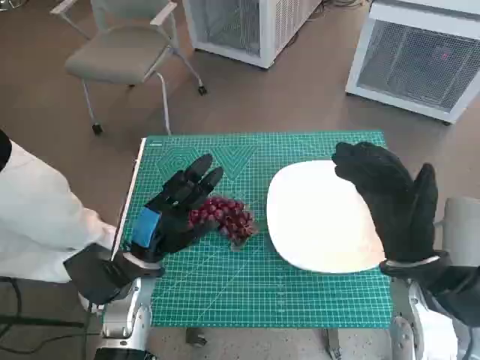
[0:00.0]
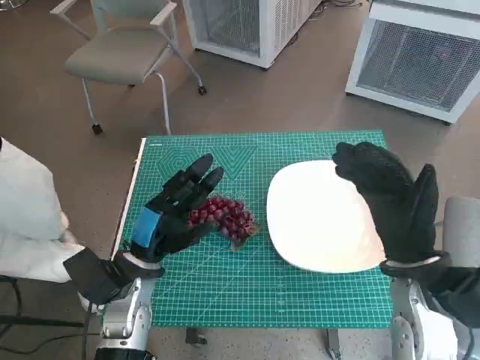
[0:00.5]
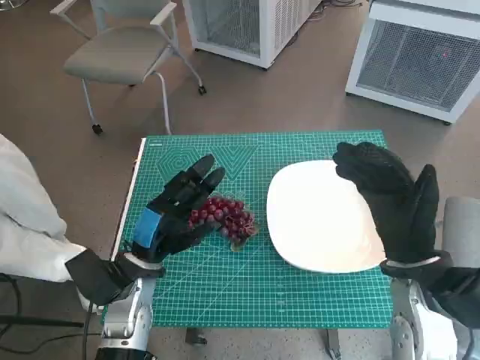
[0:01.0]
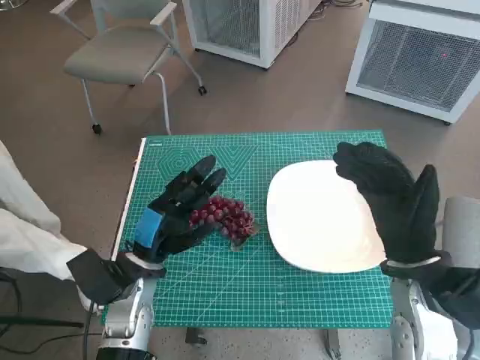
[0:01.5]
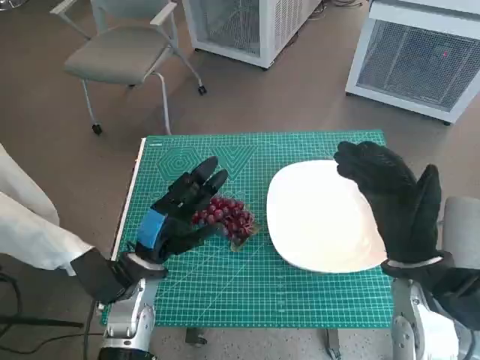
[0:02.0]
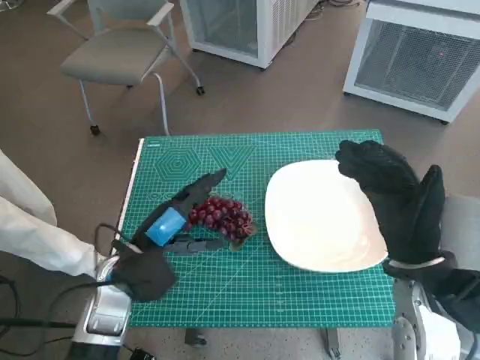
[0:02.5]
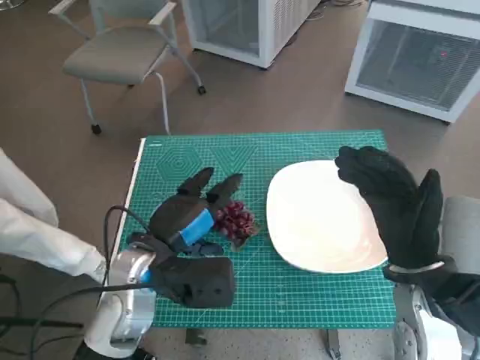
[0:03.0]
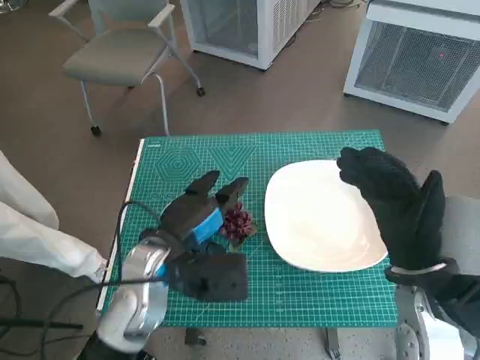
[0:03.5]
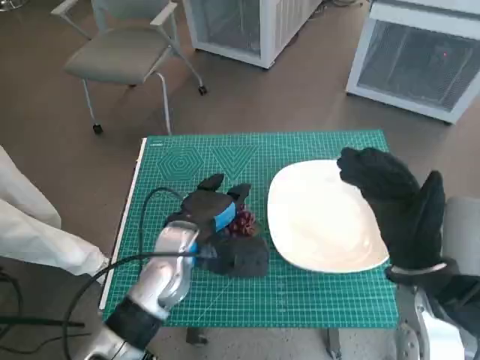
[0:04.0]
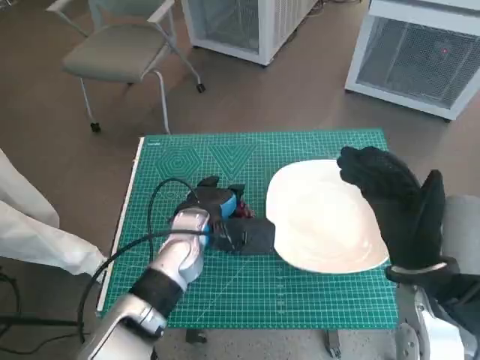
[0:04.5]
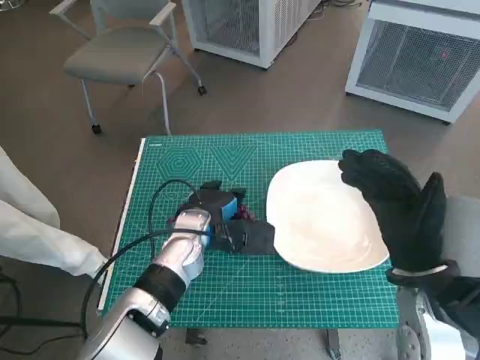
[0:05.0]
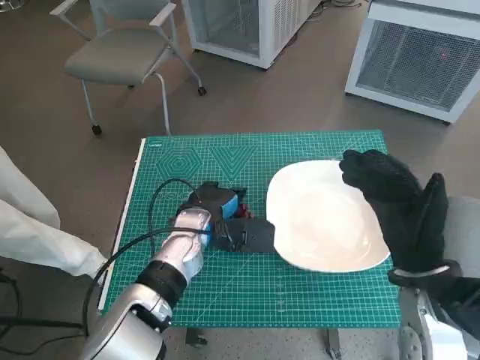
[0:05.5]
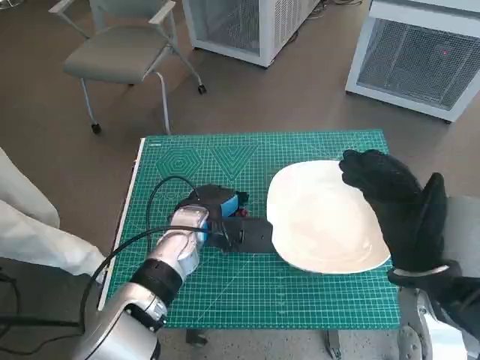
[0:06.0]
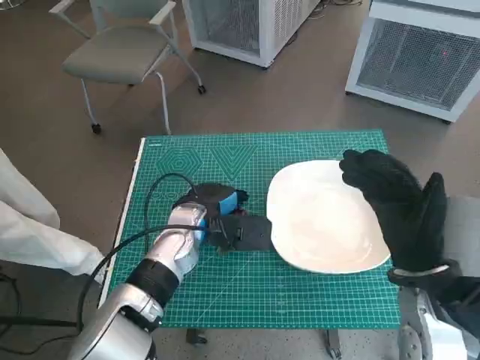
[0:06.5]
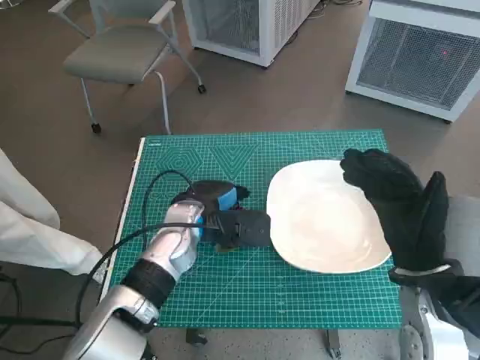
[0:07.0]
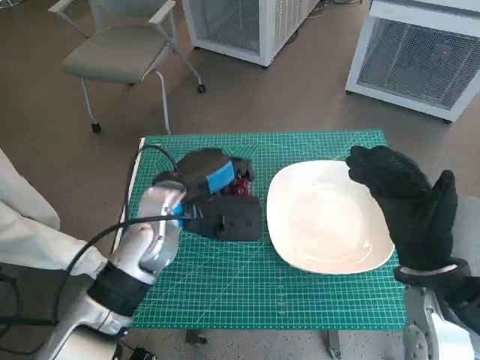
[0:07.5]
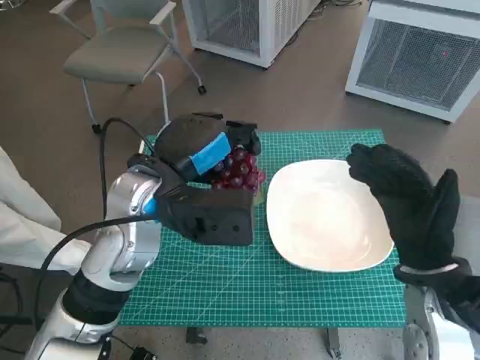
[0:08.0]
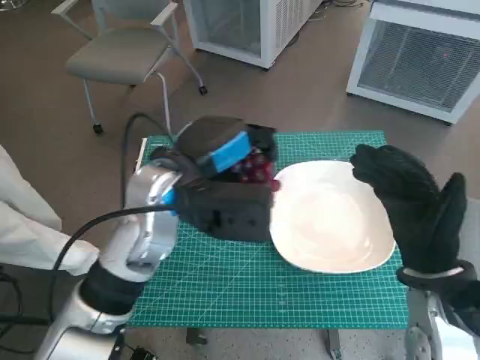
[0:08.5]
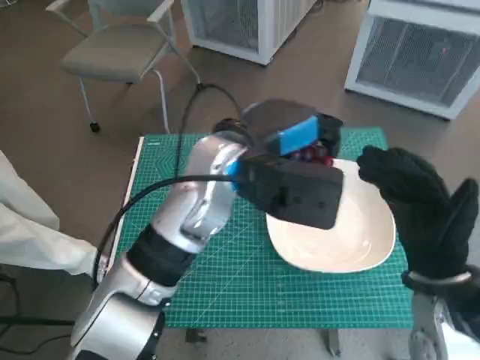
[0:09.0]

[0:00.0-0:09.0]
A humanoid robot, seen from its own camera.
Task of the whole recording: Pick up the grapes and put them on the plate.
Step, 0.0 to 5.5 s: Grasp the grapes with left hand.
2.0 to 4.5 s: The left hand travels to the right and forward by roughly 10 cm.
4.5 to 7.0 s: The hands move only a little.
7.0 to 9.0 s: The left hand is displaced upward and to the right by roughly 15 cm.

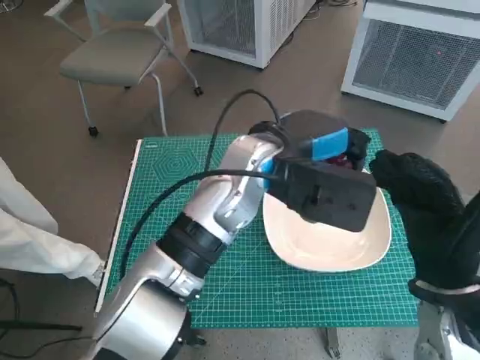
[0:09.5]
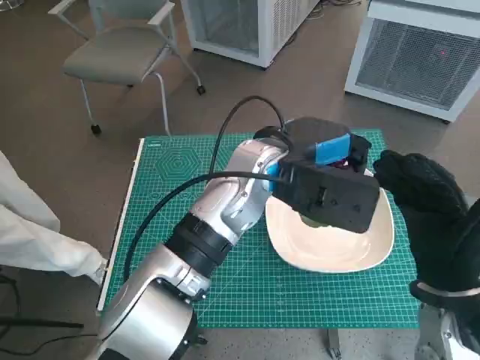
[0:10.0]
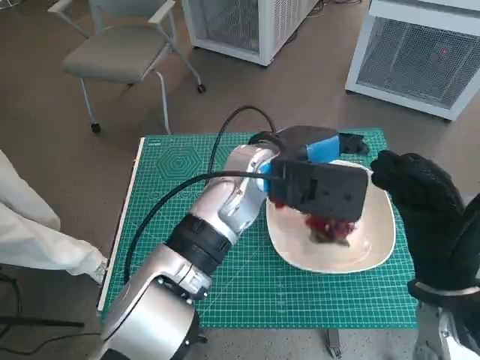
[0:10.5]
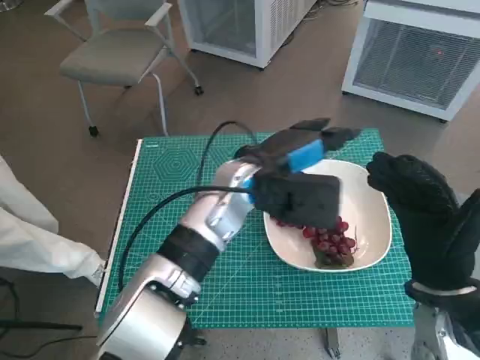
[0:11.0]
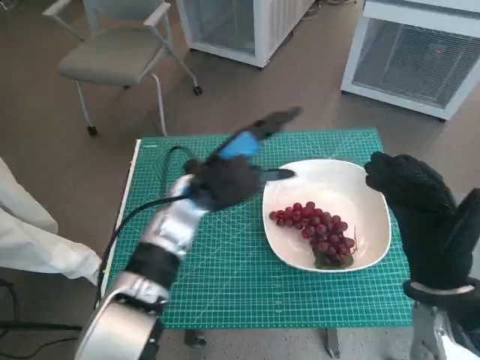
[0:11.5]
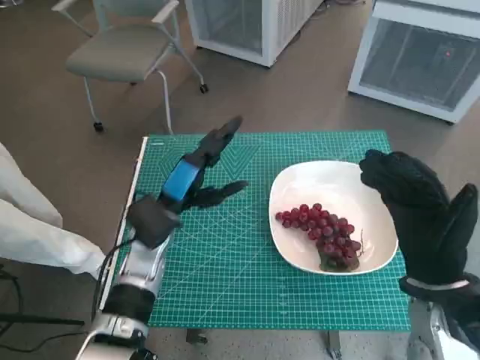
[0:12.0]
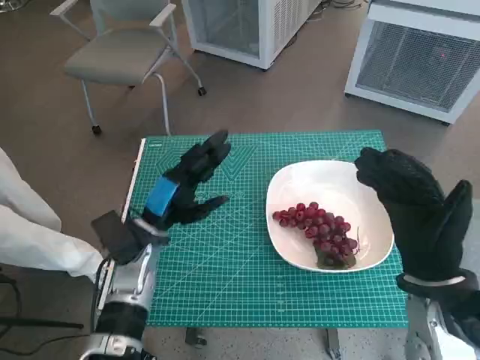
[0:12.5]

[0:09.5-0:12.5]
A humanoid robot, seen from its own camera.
Task of the whole recording: Pick up the grapes and put them on the plate.
9.5 to 11.0 s: The hands move only a little.
11.0 to 12.5 s: The left hand travels to the left and downward by about 20 cm.

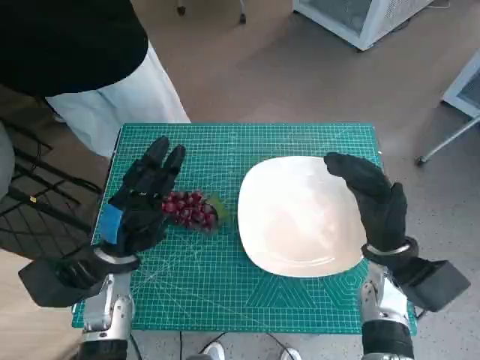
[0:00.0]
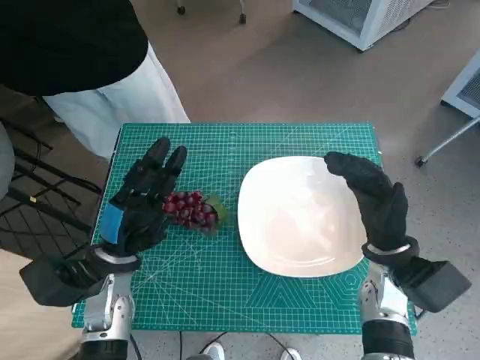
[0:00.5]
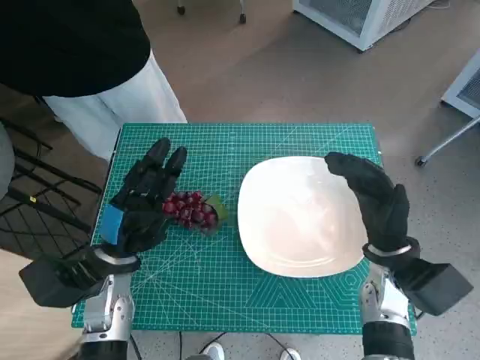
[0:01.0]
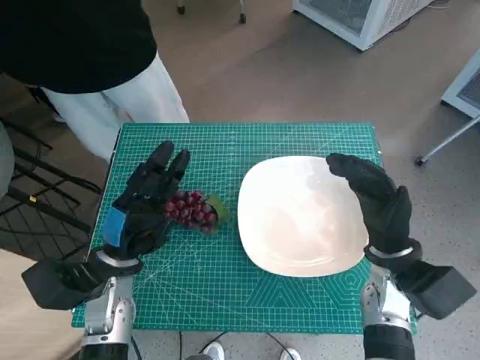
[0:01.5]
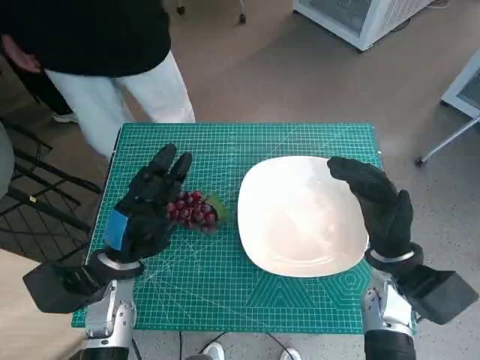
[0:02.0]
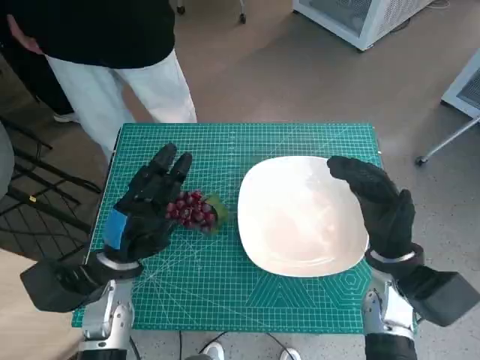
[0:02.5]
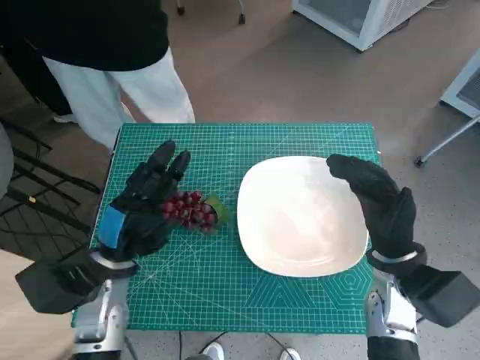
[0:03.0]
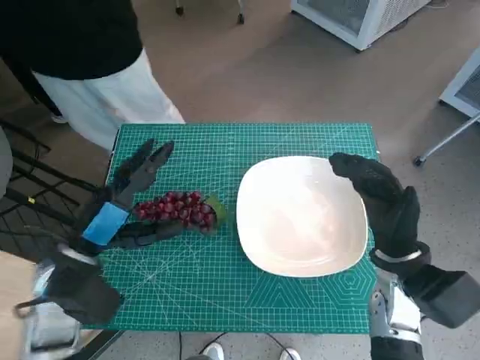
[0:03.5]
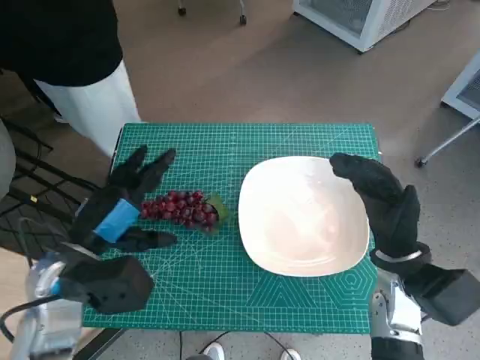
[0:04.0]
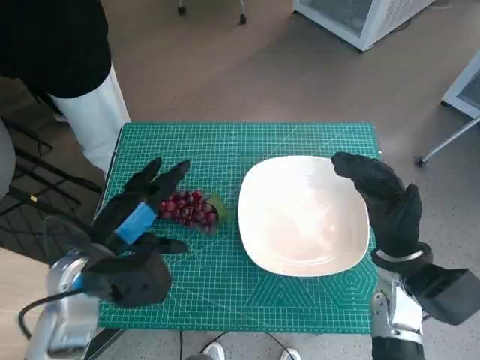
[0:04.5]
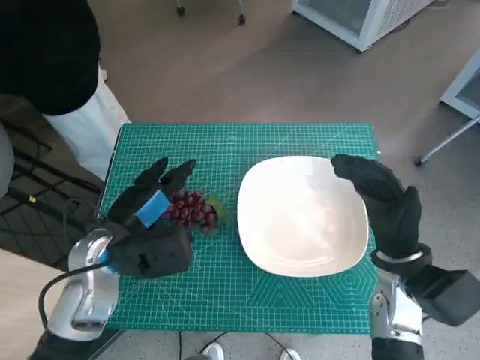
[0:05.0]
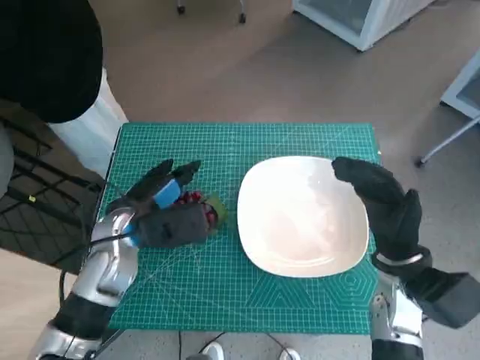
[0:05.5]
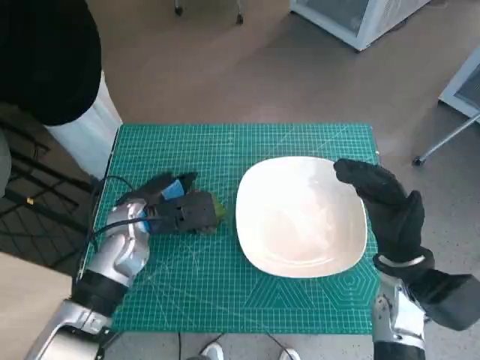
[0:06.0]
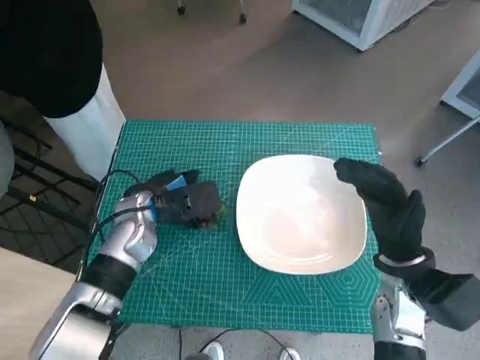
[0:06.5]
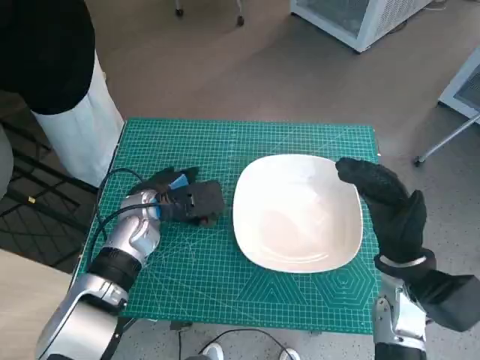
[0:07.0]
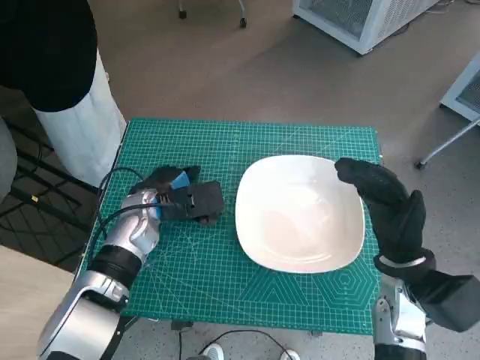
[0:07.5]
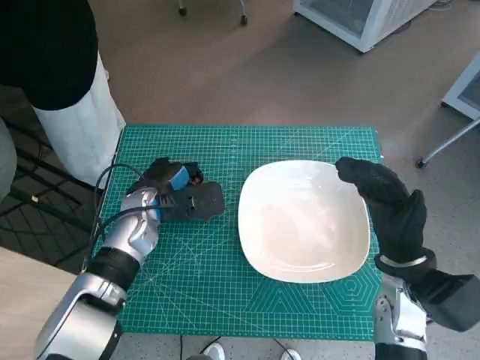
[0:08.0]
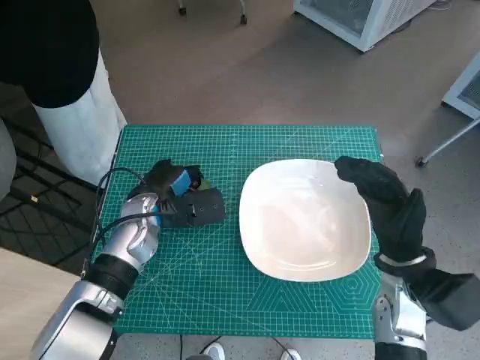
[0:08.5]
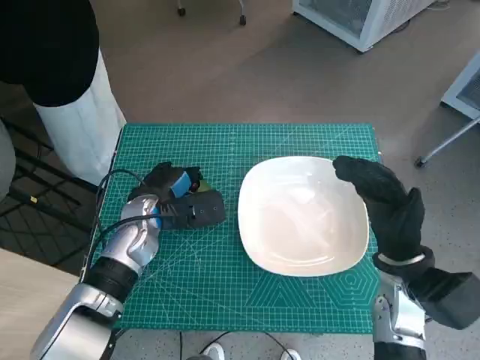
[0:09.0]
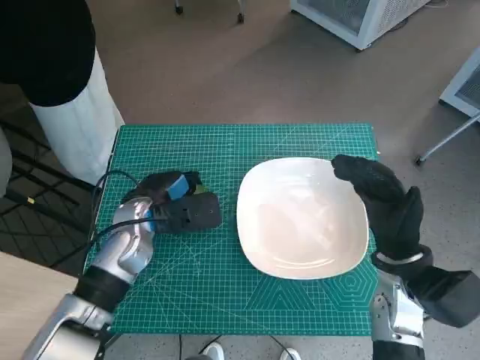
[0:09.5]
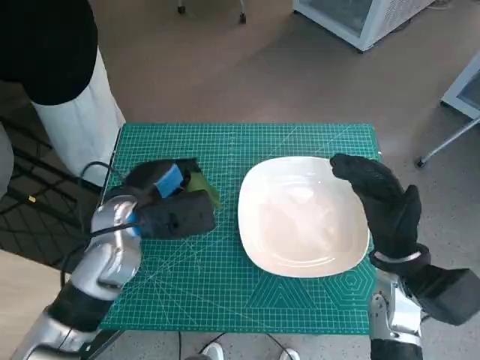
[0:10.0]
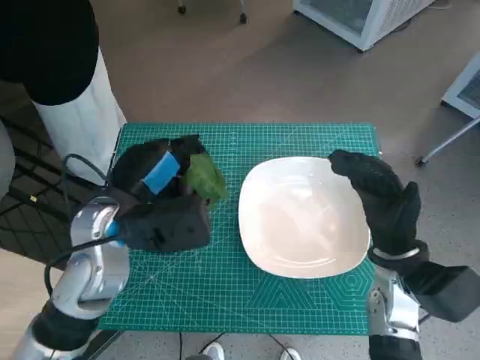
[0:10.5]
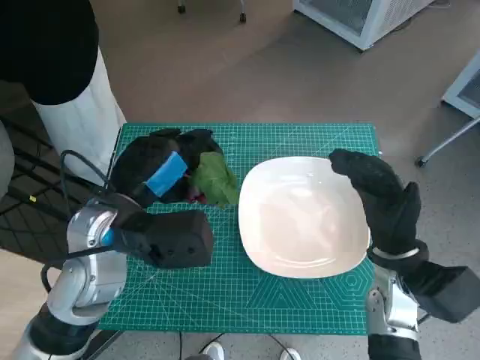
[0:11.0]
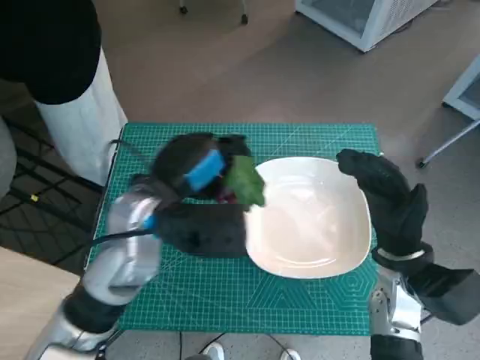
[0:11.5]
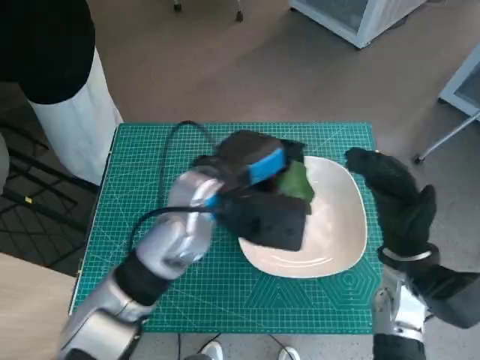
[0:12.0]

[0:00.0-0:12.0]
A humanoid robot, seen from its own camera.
Task of the whole recording: Pick up the grapes and put them on the plate.
Step, 0.0 to 9.0 s: Grasp the grapes with left hand.
2.0 to 4.0 s: The left hand goes about 10 cm upward.
4.0 to 6.0 s: The left hand shifts roughly 10 cm forward and downward.
6.0 to 8.0 s: The hands make only small movements.
8.0 to 10.0 s: The left hand shifts by approximately 5 cm.
10.0 to 12.0 s: The left hand goes some 10 cm to the right and upward.

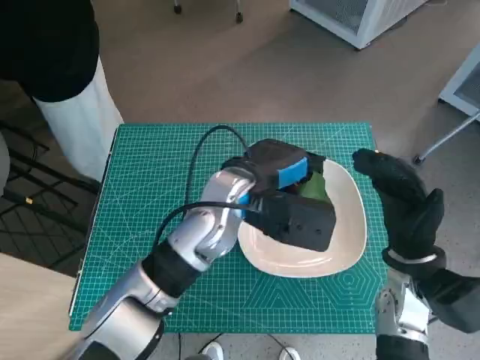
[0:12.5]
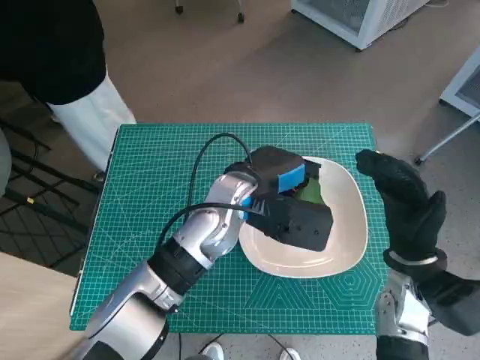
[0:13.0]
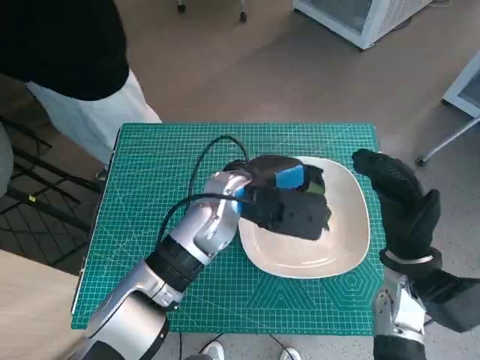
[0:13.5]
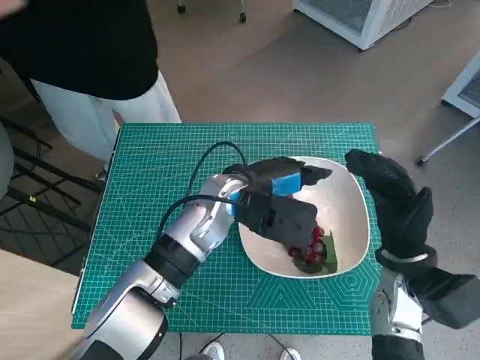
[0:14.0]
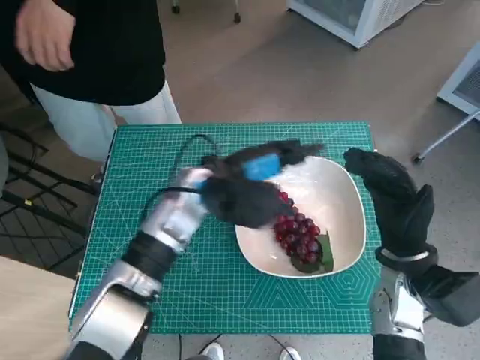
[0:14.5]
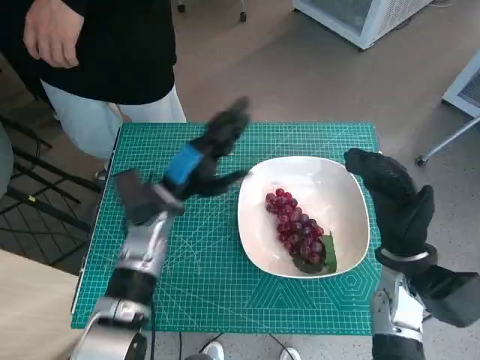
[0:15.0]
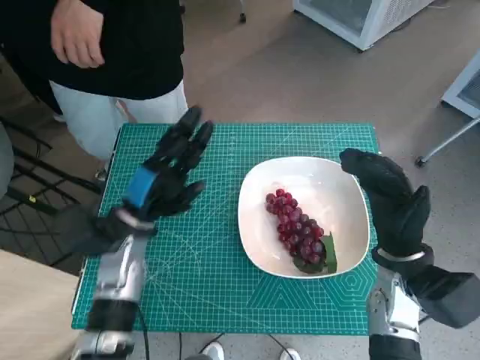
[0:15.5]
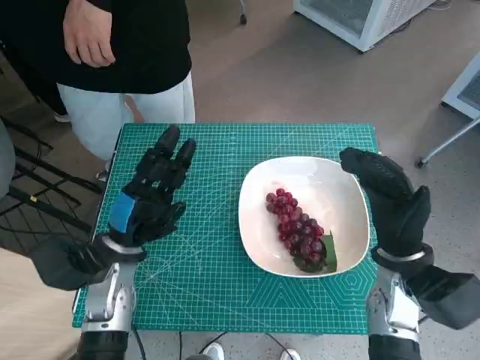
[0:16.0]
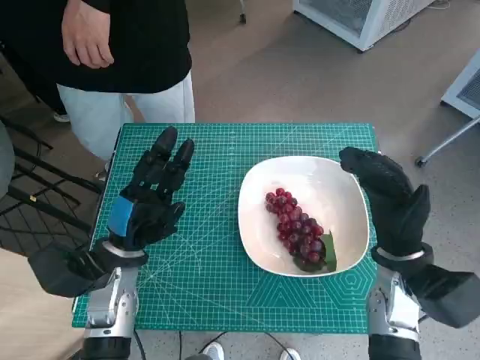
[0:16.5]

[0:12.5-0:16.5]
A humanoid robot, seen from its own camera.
Task of the whole recording: Pick up the grapes and put them on the plate.
12.5 to 14.5 s: The left hand changes place by roughly 5 cm.
14.5 to 16.5 s: The left hand shifts approximately 20 cm to the left, backward and downward.
